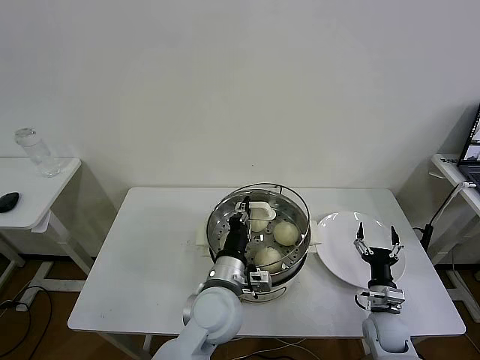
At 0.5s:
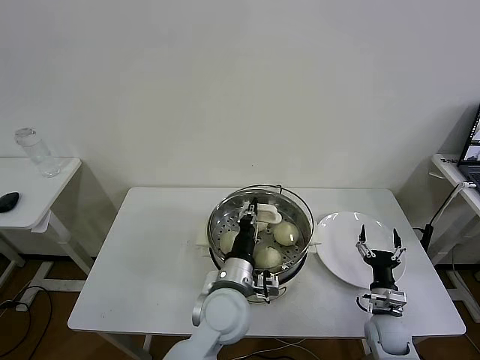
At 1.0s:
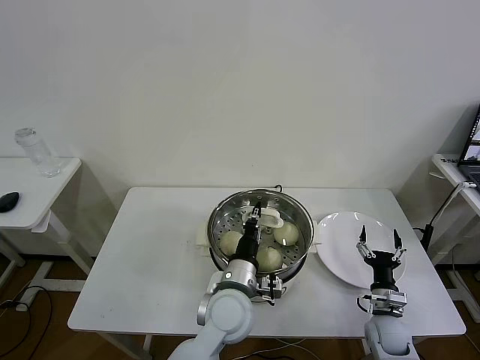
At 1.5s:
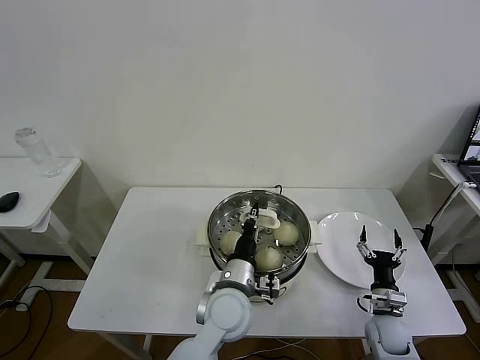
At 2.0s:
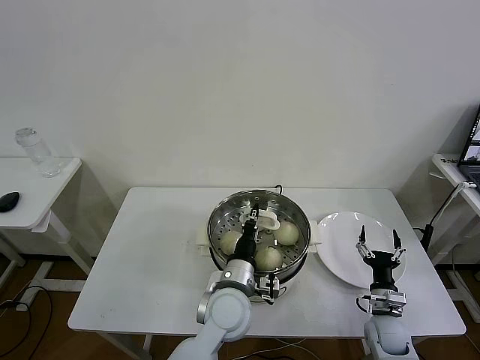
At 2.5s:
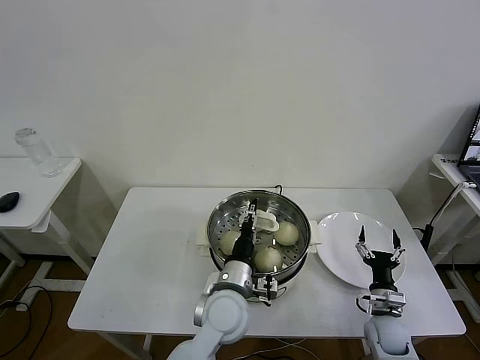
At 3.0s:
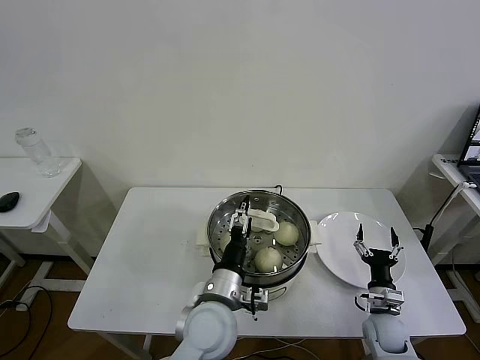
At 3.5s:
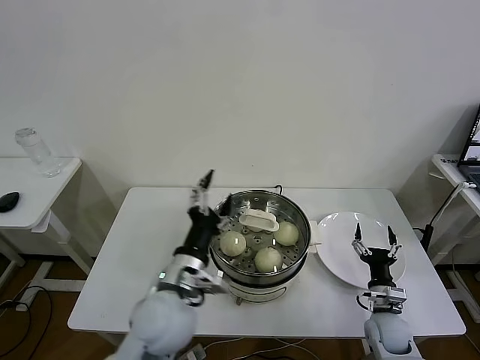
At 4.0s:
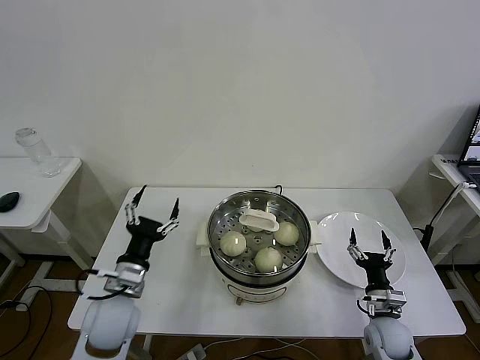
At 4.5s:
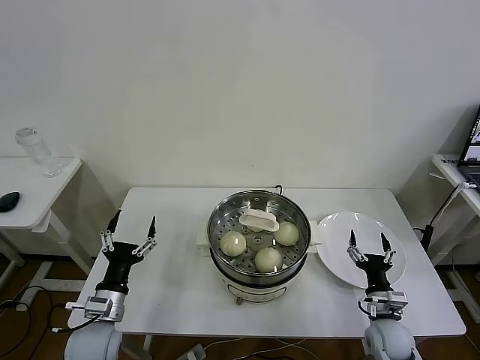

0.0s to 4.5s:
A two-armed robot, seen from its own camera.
Task of the whole recording: take steamed baozi put them in steamer then cover it.
Step, 0.0s to 3.0s: Place the pot lid on the steamer with left gripper.
0.0s to 2.0s: There are only small adjustments of the grippers.
2.0s to 4.5s: The left gripper moves to the left, roughly 25 cm, and opens up.
